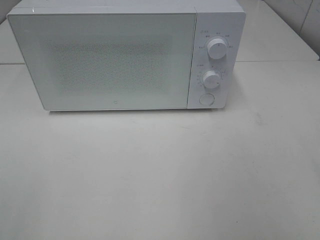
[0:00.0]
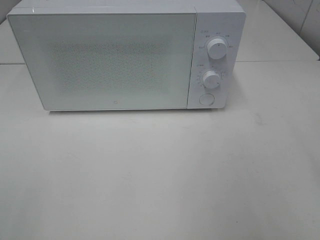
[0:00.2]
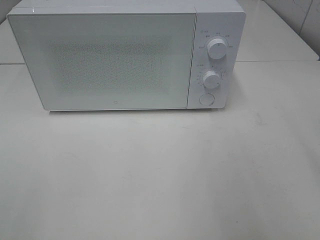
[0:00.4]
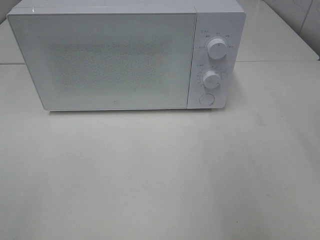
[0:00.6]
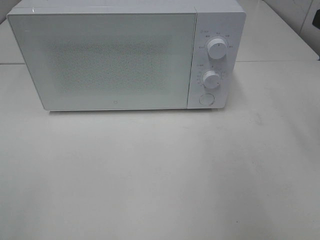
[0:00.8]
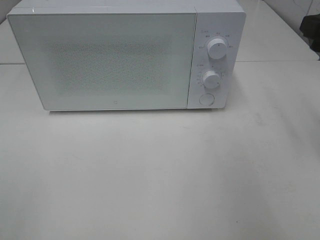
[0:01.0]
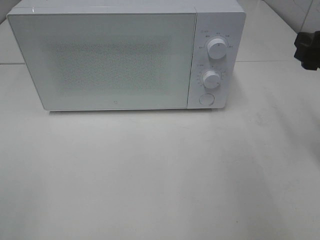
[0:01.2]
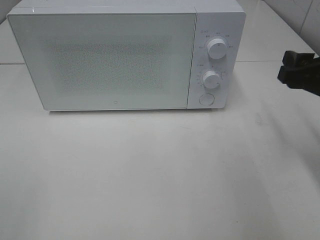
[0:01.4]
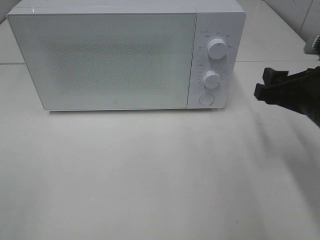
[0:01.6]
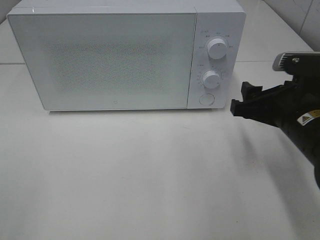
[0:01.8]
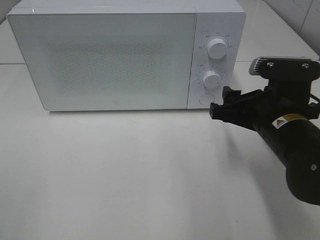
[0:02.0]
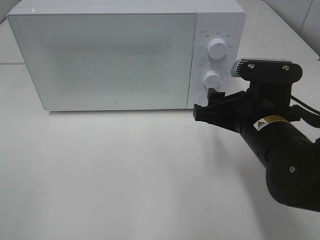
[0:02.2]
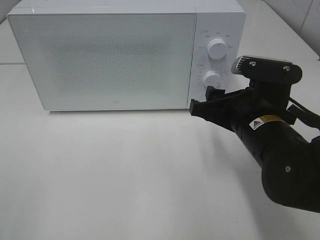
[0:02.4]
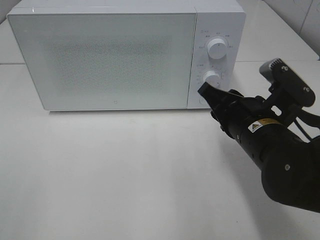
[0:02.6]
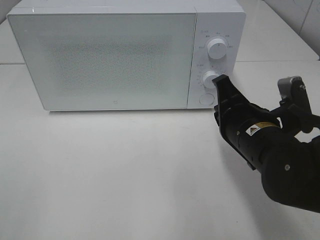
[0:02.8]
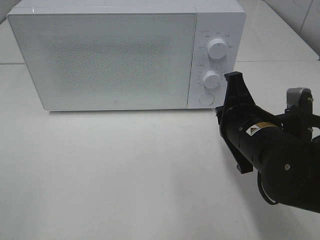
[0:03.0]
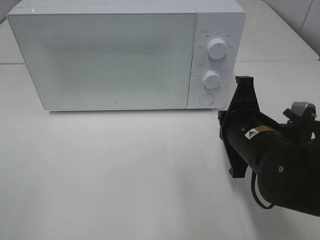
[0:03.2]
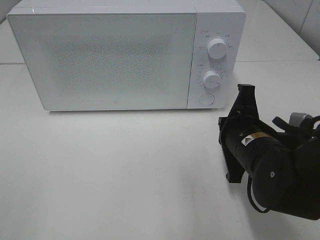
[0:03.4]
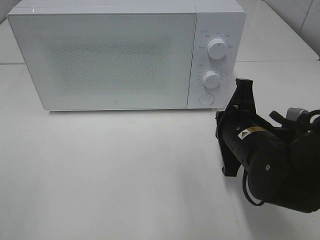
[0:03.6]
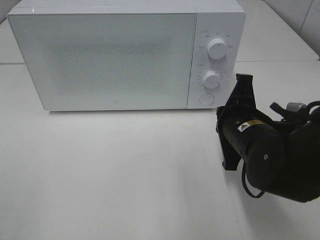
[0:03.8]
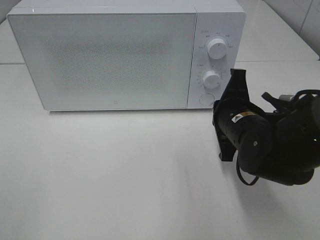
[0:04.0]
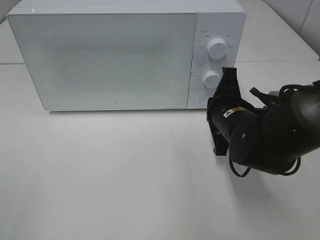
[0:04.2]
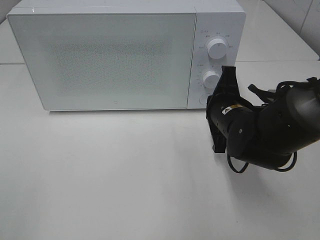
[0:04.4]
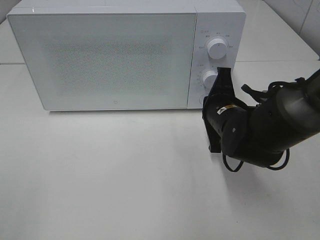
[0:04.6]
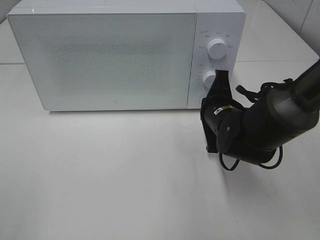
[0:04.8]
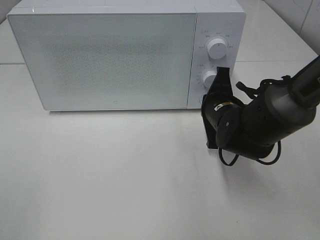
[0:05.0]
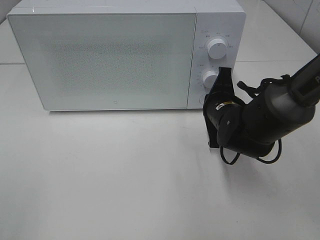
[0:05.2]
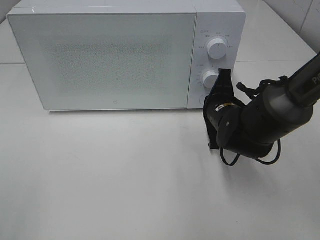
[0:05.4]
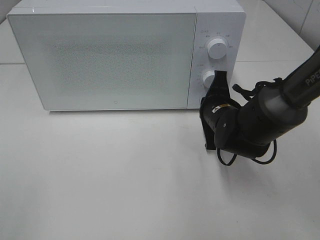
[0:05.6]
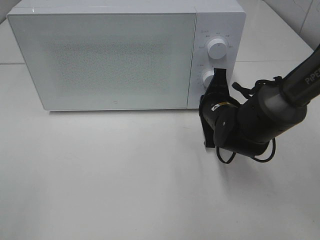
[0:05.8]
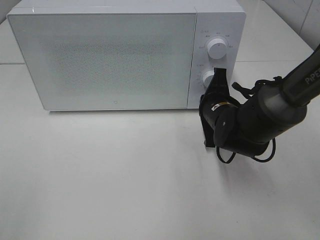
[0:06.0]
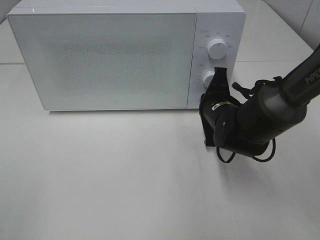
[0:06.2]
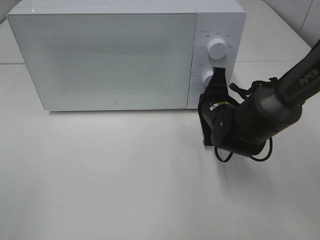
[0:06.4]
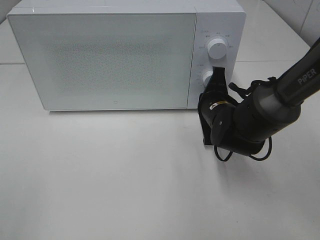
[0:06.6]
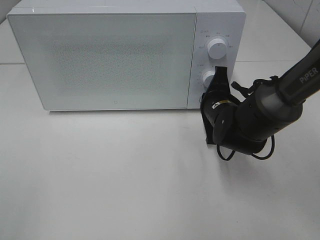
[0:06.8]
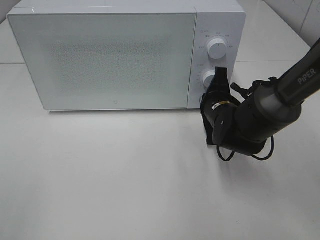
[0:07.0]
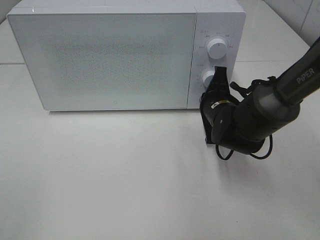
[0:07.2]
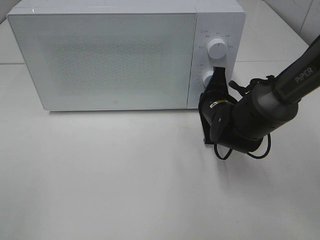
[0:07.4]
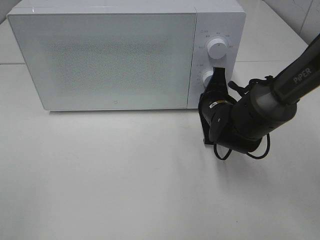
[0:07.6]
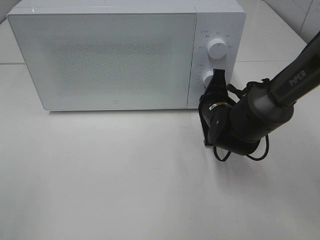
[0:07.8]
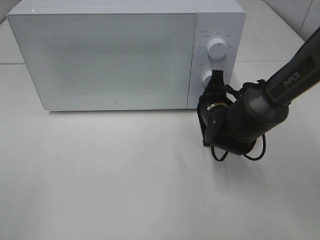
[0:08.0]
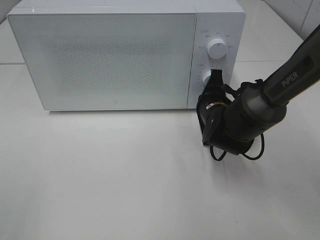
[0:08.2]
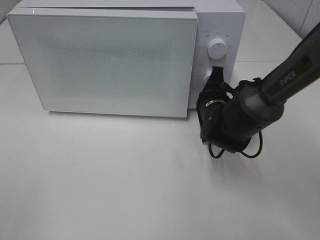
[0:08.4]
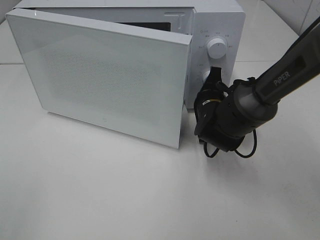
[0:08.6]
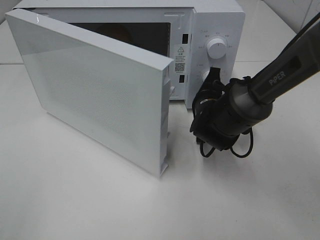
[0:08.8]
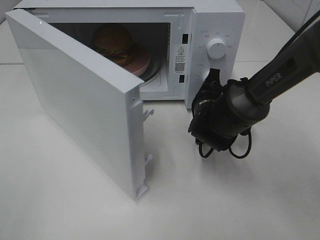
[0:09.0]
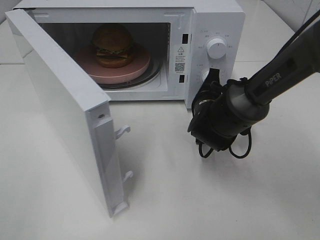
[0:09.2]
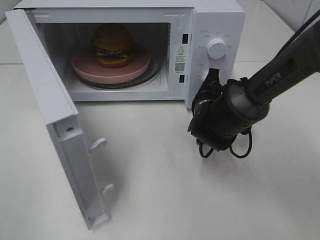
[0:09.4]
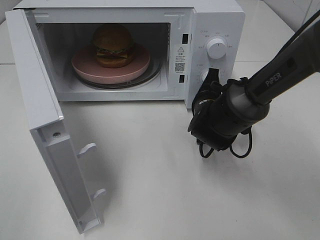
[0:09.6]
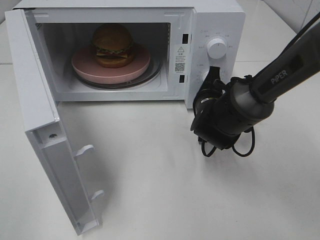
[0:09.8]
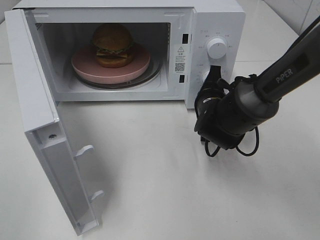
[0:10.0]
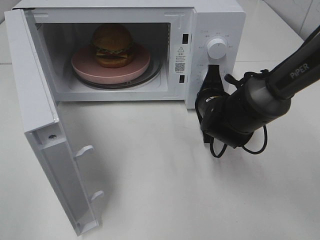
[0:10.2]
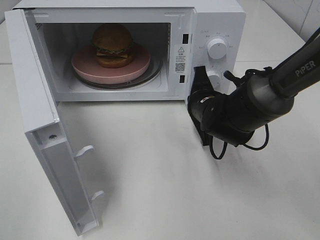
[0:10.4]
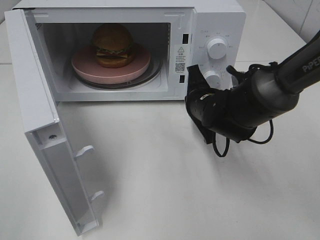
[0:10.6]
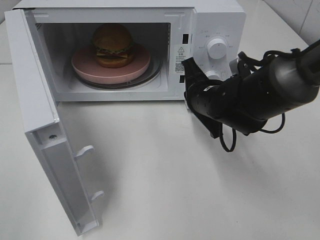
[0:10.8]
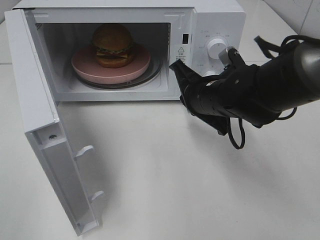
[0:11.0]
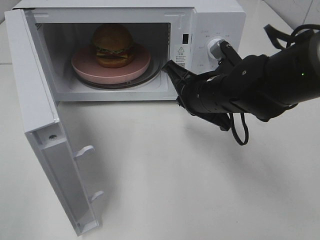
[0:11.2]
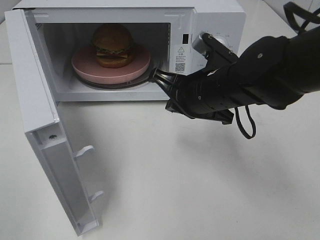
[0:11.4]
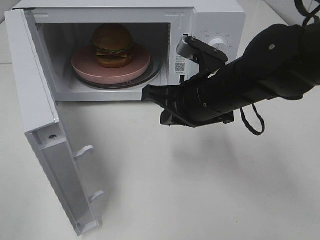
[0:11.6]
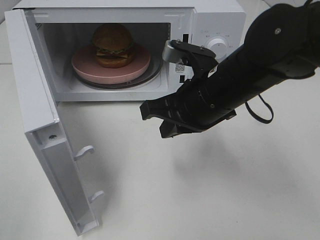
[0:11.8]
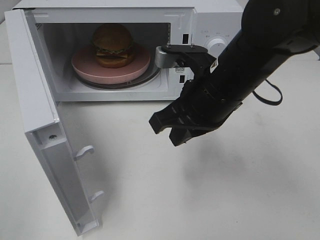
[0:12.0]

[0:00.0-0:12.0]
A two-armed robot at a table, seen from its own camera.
Task of the whole recording: Heat the burger.
Step, 0:00.0 to 0:10.2: Right hand: press the switch.
0:00.0 to 0:01.6: The right gripper heads downward and forward, covering roughly 20 cm.
0:01.6 to 0:03.0: The right gripper is displaced to the left by some 10 cm, and closes up.
0:03.0 to 0:04.4: The right gripper shifts some 5 cm forward.
0:04.4 to 0:07.6: The grippers move only a little.
0:10.4 to 0:12.0: The right gripper moves upward and backward, about 15 cm.

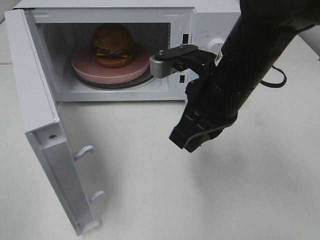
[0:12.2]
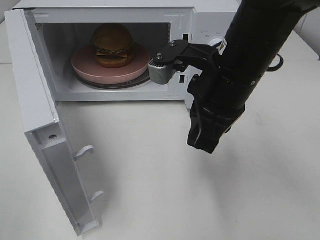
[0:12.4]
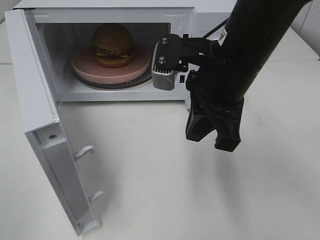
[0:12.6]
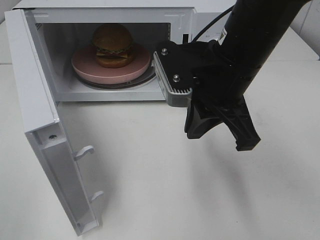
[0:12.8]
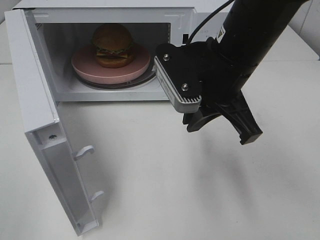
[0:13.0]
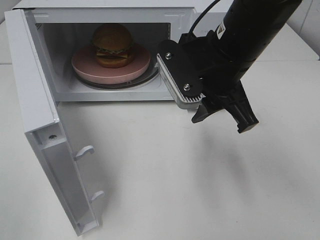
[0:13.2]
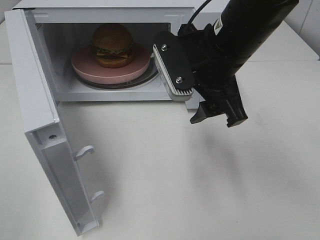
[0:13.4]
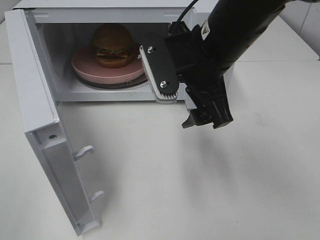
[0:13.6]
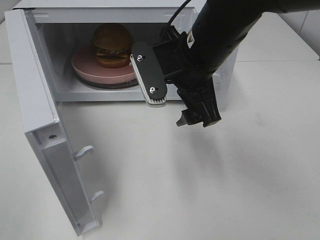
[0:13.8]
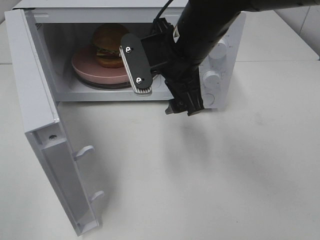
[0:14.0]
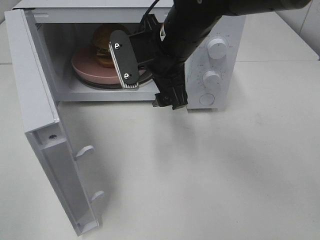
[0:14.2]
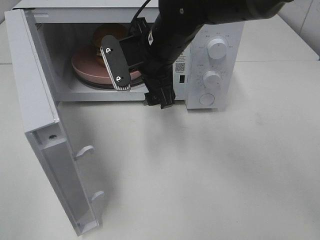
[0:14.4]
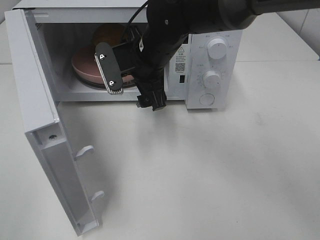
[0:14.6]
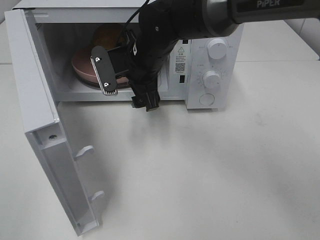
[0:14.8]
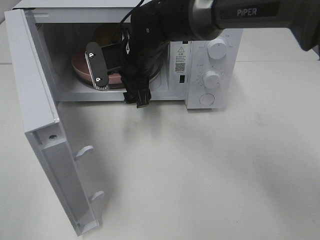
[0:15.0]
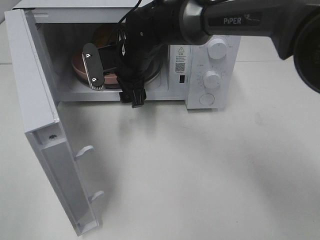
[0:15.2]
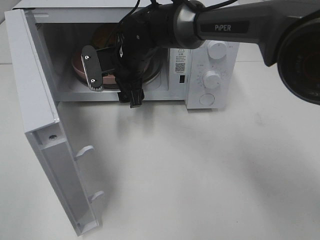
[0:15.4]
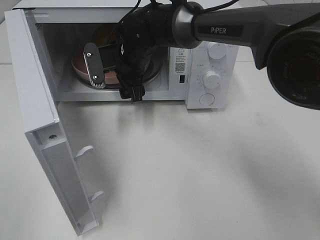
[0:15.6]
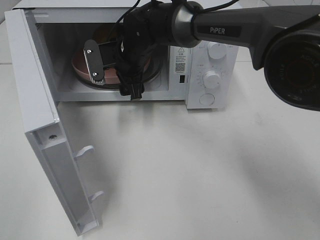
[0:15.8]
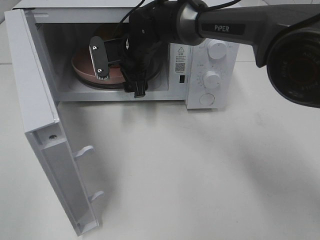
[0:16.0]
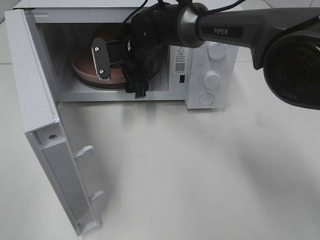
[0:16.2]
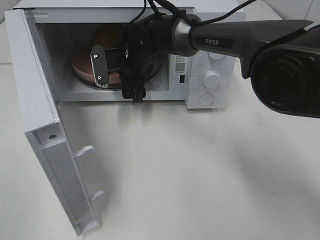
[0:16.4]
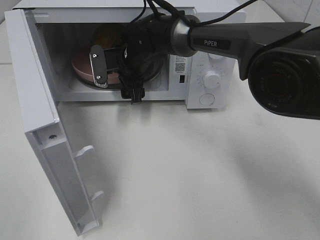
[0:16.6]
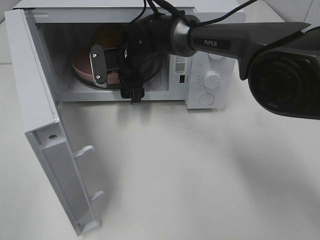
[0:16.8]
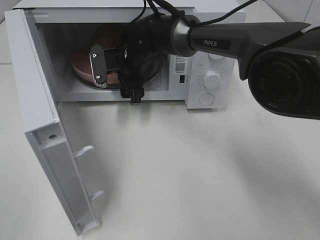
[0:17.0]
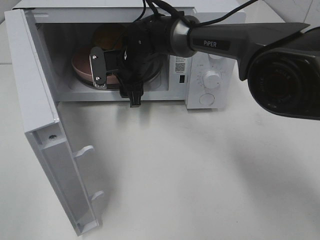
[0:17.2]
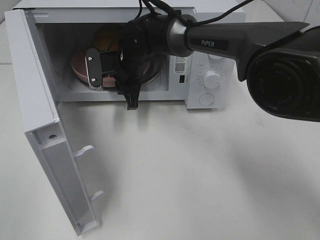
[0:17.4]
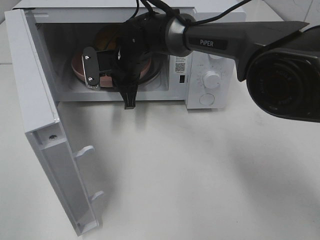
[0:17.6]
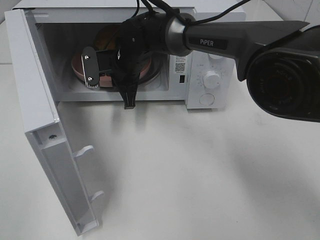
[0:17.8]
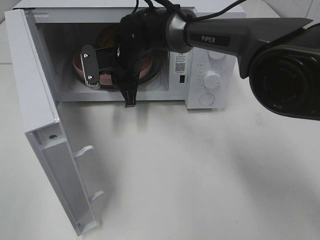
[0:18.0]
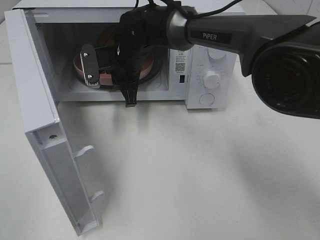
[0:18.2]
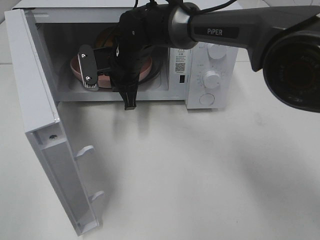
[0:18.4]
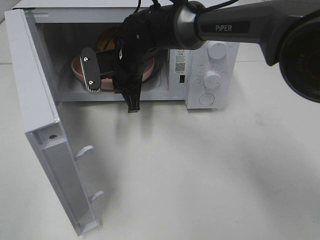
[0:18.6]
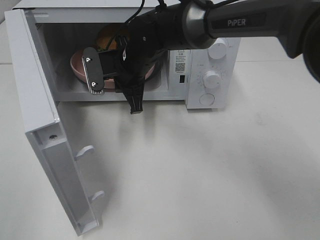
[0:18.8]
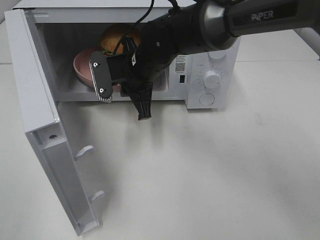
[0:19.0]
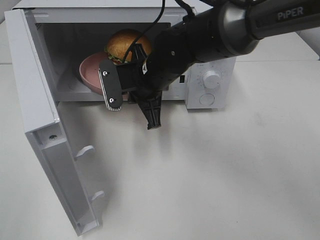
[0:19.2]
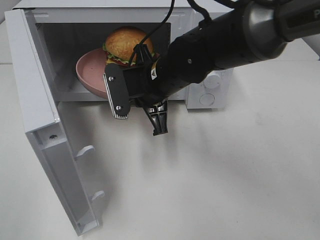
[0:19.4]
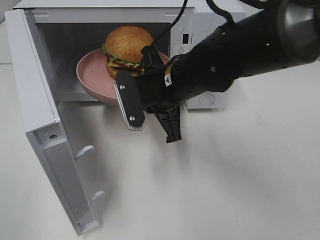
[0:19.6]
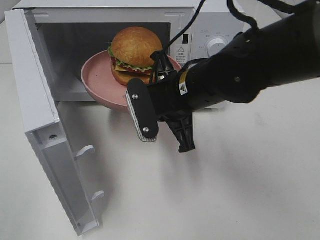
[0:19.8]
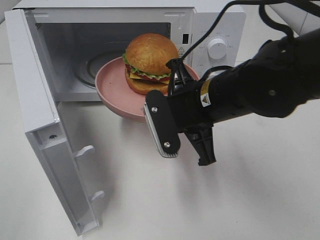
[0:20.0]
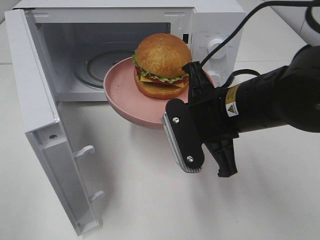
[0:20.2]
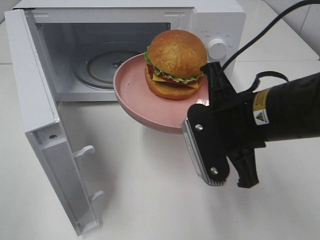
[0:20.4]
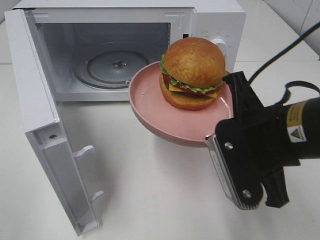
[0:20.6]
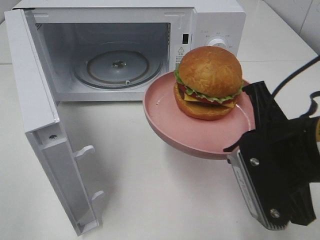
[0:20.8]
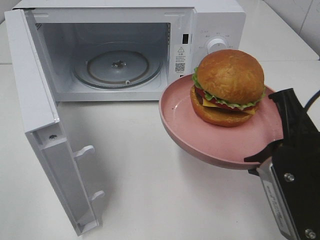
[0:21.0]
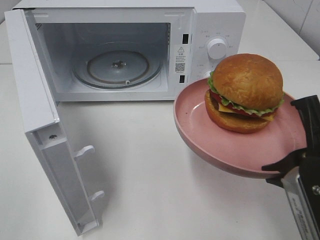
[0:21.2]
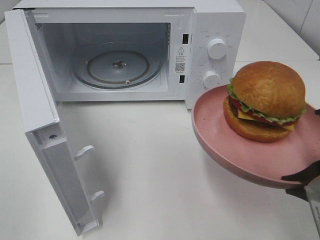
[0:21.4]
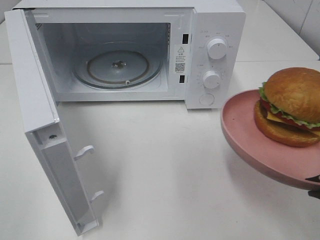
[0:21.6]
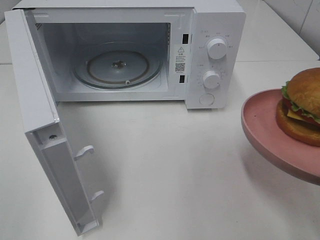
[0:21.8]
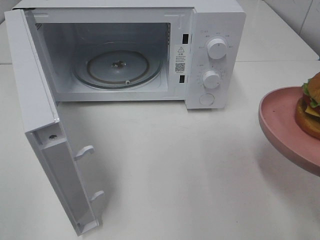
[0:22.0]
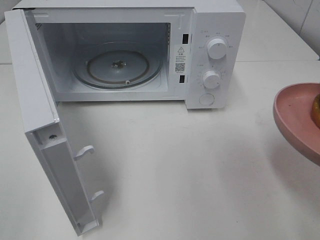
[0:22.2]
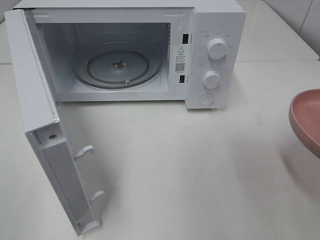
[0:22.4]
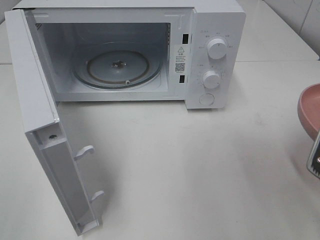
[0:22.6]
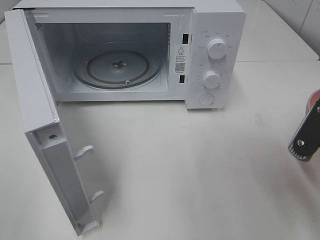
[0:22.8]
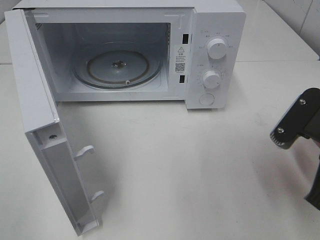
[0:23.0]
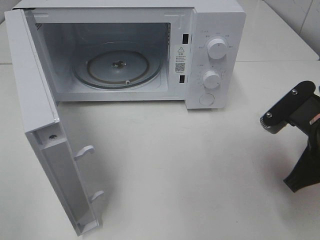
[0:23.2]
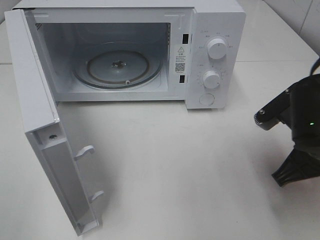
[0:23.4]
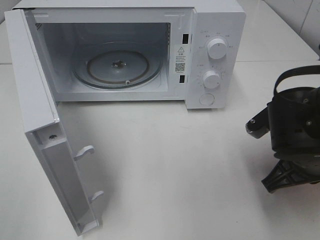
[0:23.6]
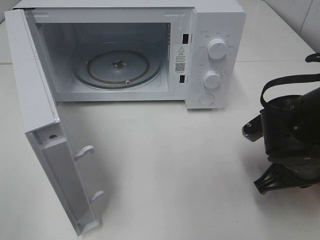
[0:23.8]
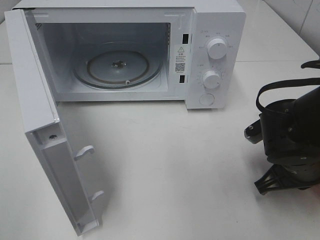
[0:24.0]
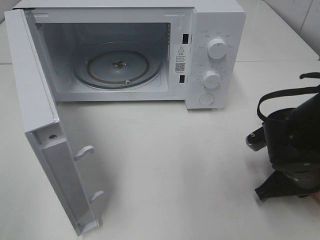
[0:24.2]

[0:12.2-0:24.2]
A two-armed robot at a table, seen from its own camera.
Task of the whole recording: Heat the burger.
Step, 0:12.2 to 0:17.6: Right hand: grab the plate with the hamburger.
0:12.2 to 0:13.8: The right gripper moves approximately 5 cm, and opens.
0:13.8 to 0:15.2: The right gripper shifts roughly 15 cm forward, to the left and downward.
0:15.2 to 0:16.6: The right gripper moves about 5 cm.
0:16.6 to 0:18.2: The right gripper closes.
0:18.2 to 0:19.8: The right gripper heads backward and to the right, covering roughly 20 cm.
0:19.8 to 0:21.2: The right gripper moves backward and to the right, some 20 cm.
0:22.6 to 0:24.2: The right gripper shifts approximately 15 cm downward and forward.
